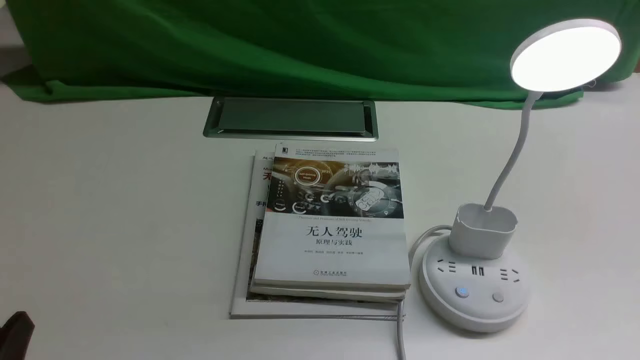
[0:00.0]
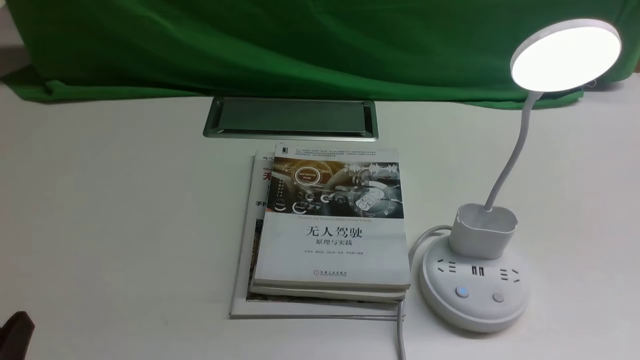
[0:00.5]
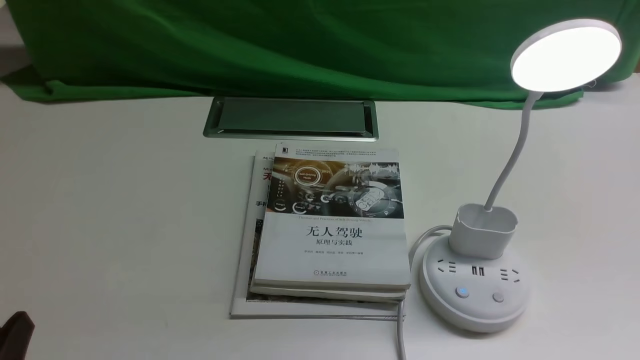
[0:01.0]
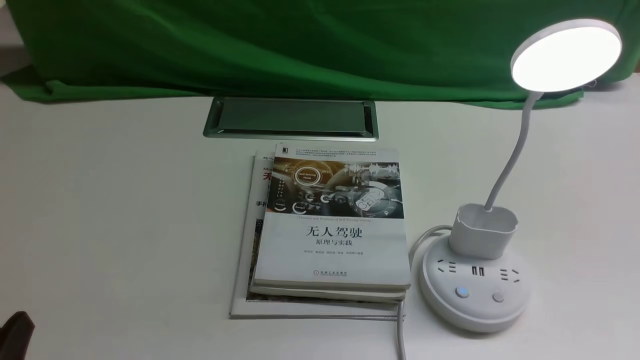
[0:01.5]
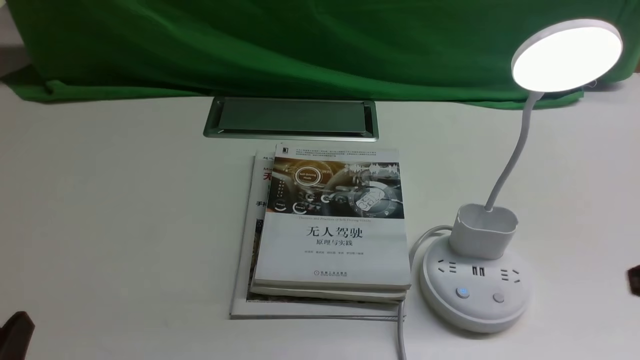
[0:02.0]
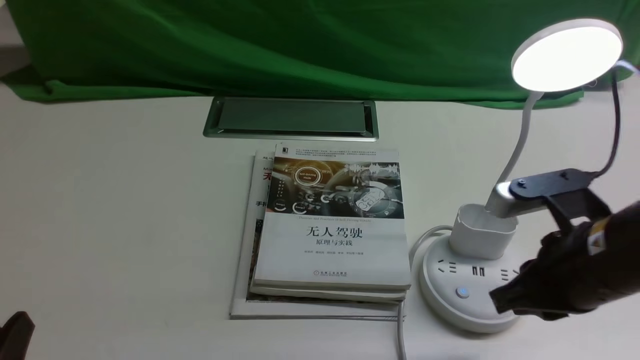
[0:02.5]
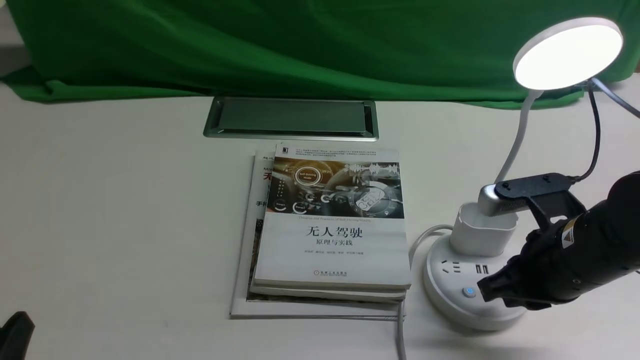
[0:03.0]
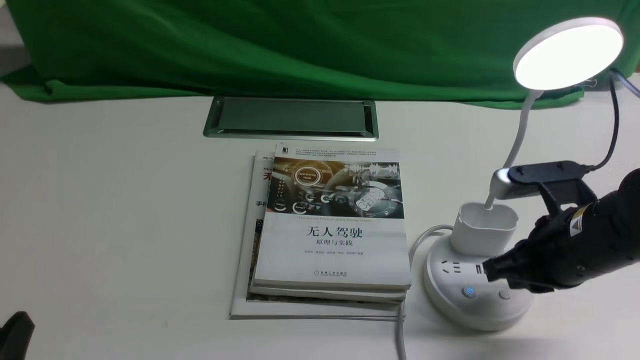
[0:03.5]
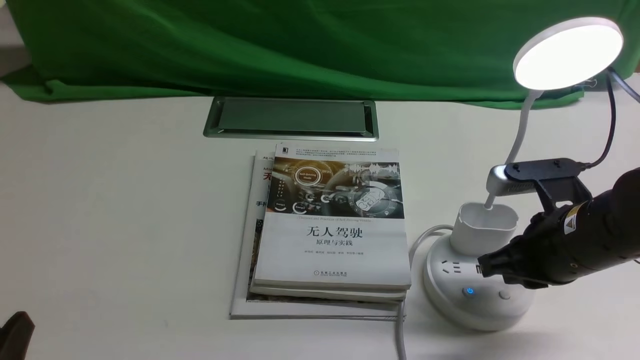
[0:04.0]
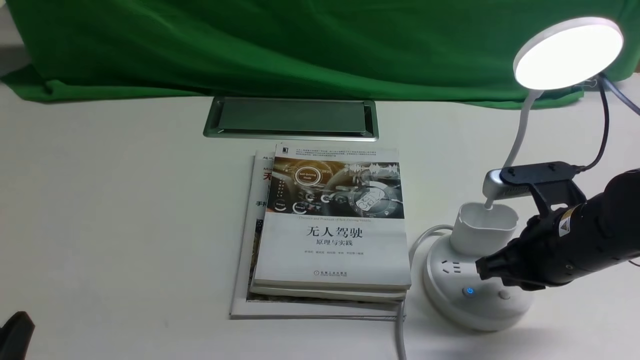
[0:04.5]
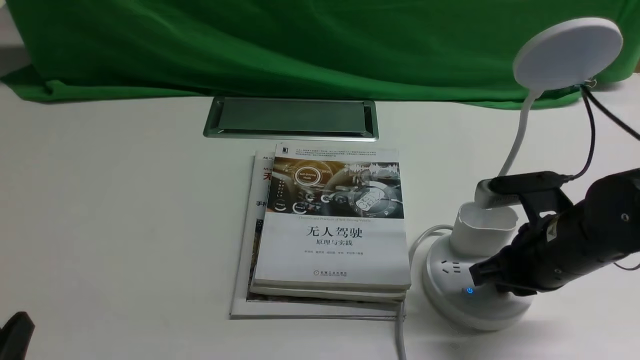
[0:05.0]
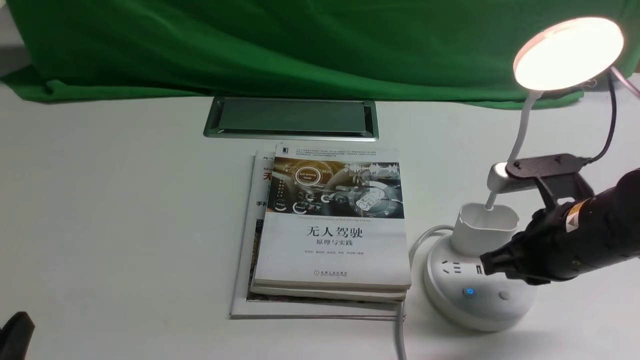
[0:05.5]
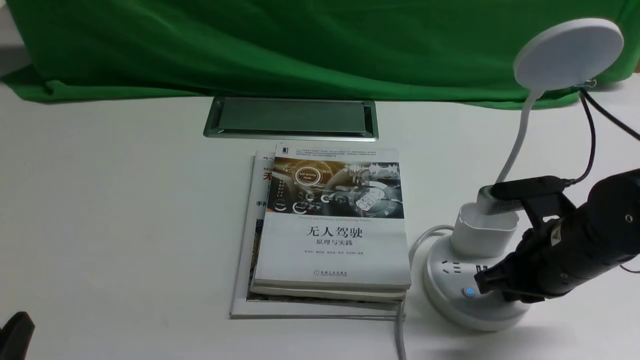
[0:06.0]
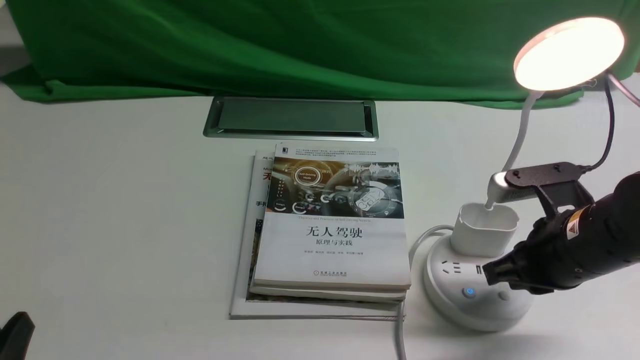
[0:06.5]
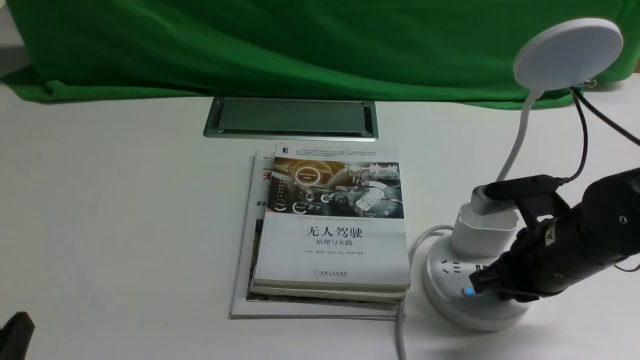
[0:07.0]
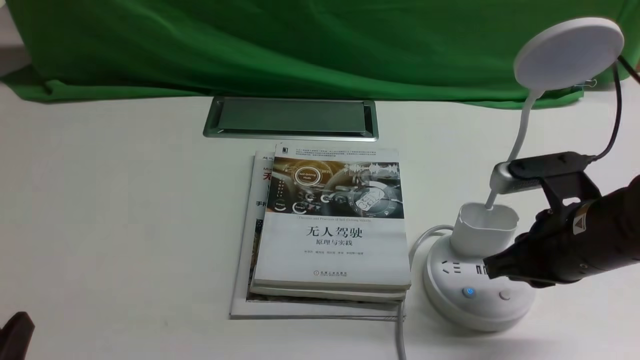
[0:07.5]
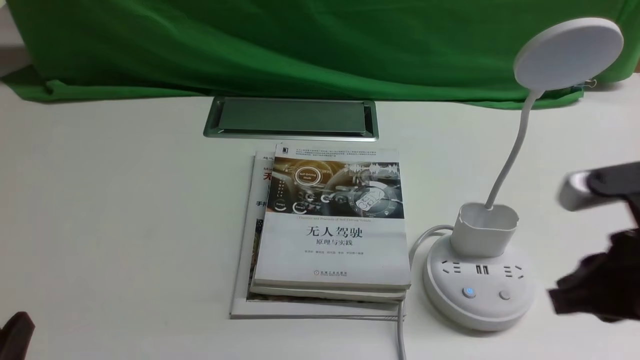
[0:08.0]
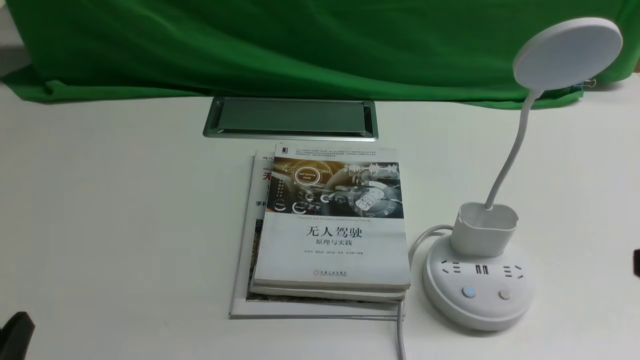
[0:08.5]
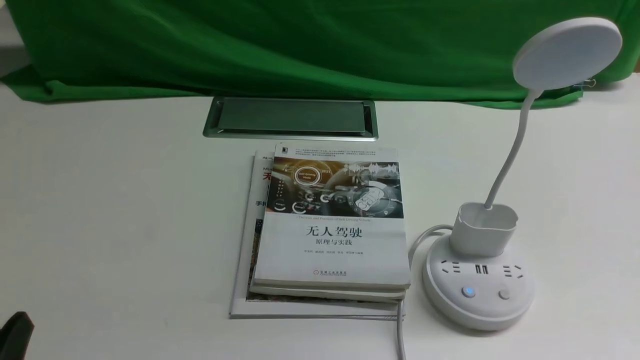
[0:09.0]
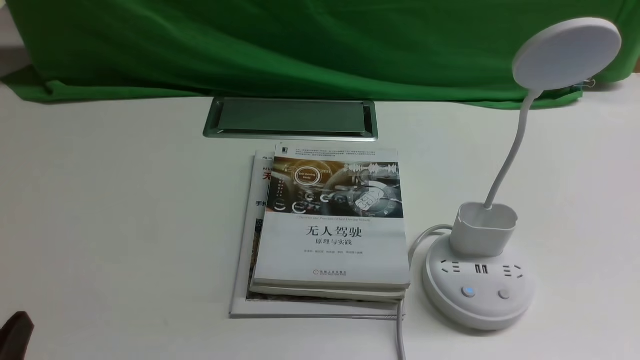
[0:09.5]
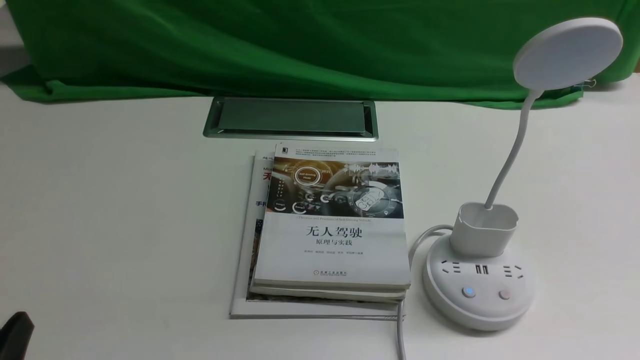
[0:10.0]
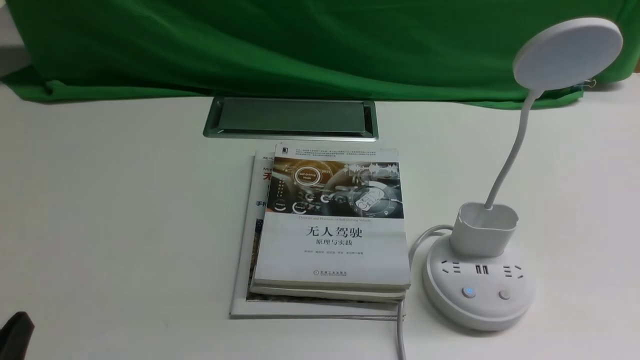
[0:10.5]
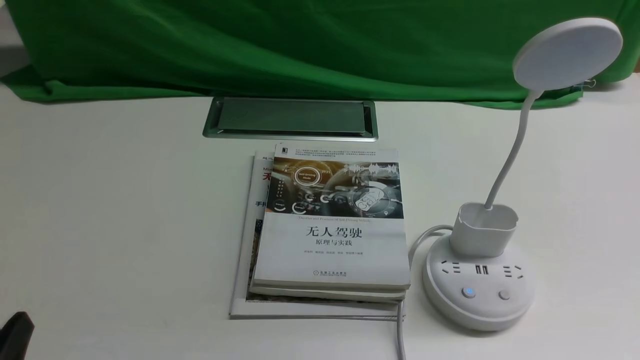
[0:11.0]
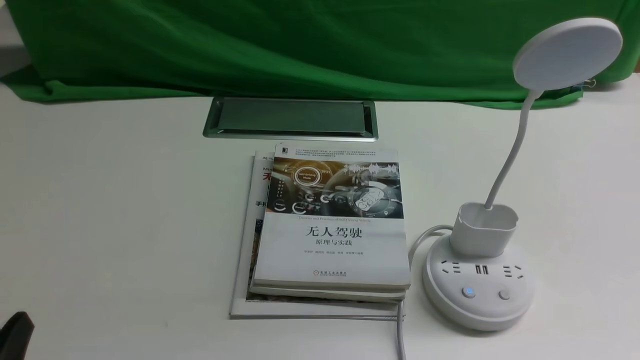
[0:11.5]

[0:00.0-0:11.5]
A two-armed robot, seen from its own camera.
Task of the whole recording: turn off the desk lamp on the white desktop by hand.
Step, 0:00.0 to 0:07.5: use the right arm to press the button switch on the lamp holder.
0:02.0 to 0:04.0: The right gripper goes approximately 15 cm downward, forward and to the left.
0:04.0 to 0:07.5: The grippers make only small movements.
0:07.5 to 0:09.5: The right gripper is displaced backward and to the right by about 20 cm.
0:09.5 to 0:11.5: Neither gripper changes place.
